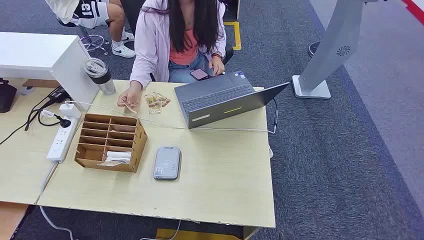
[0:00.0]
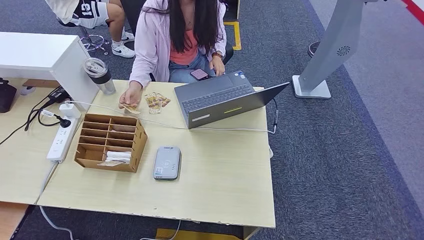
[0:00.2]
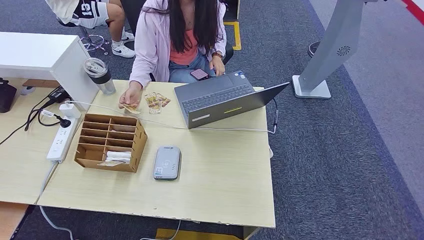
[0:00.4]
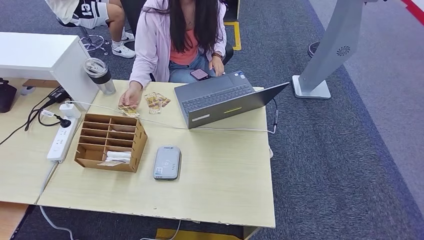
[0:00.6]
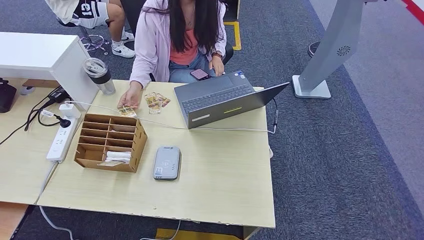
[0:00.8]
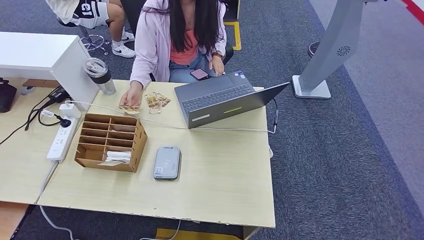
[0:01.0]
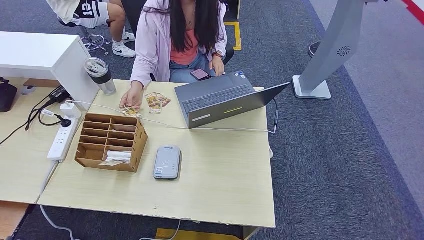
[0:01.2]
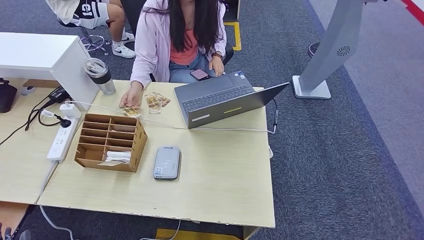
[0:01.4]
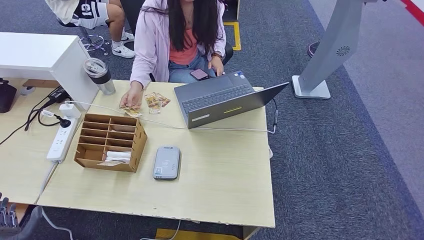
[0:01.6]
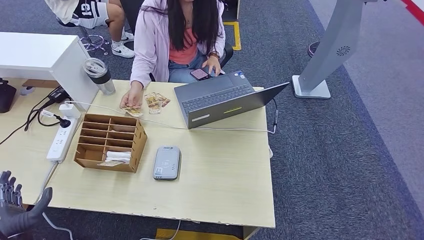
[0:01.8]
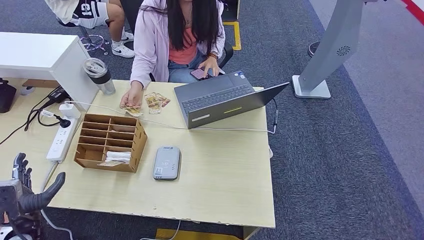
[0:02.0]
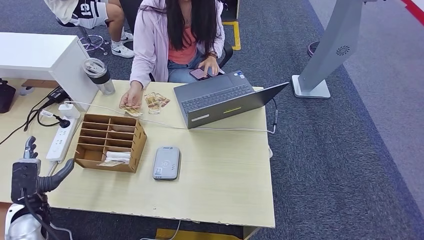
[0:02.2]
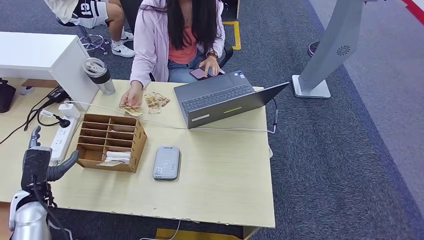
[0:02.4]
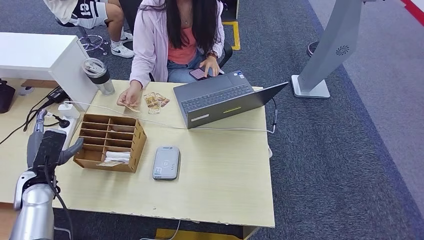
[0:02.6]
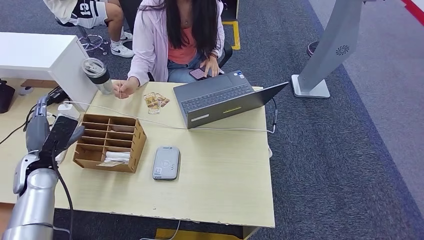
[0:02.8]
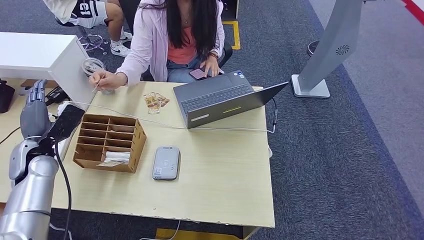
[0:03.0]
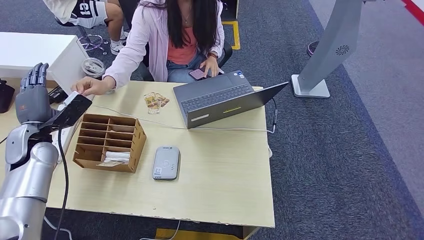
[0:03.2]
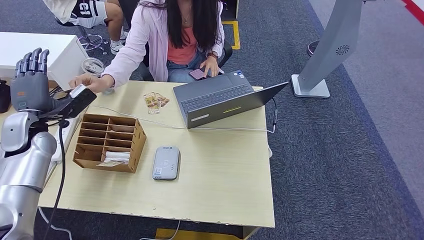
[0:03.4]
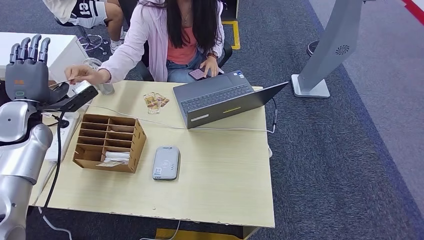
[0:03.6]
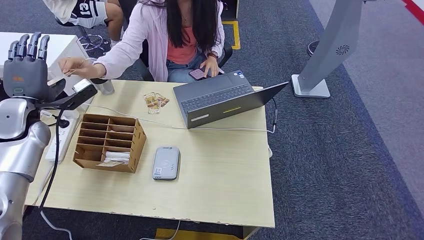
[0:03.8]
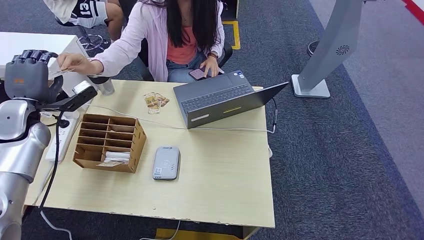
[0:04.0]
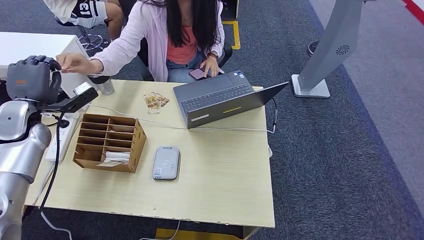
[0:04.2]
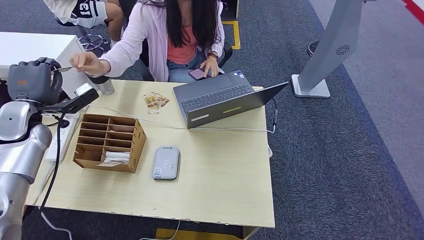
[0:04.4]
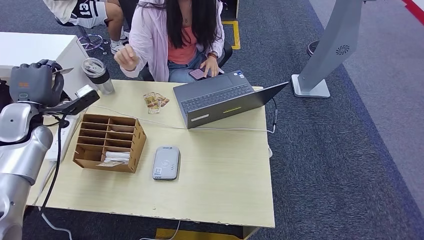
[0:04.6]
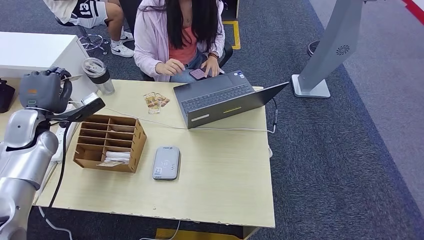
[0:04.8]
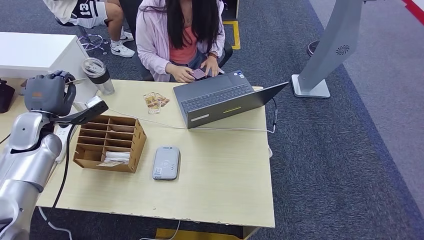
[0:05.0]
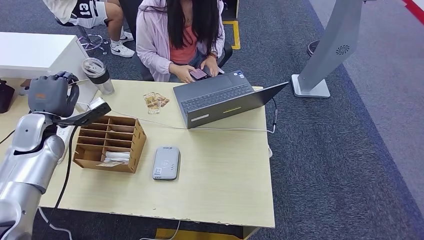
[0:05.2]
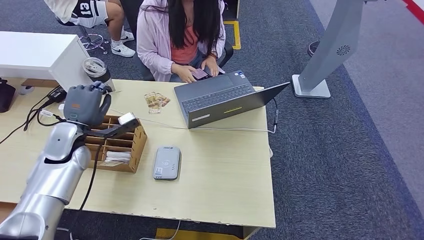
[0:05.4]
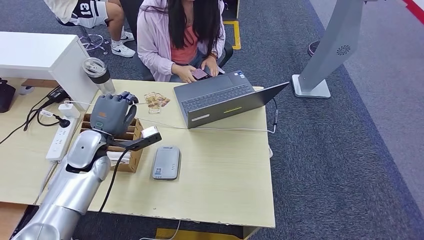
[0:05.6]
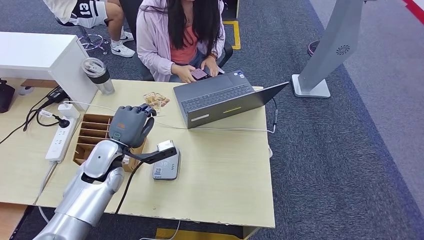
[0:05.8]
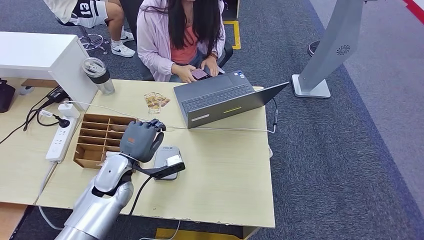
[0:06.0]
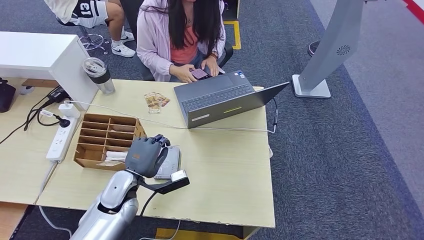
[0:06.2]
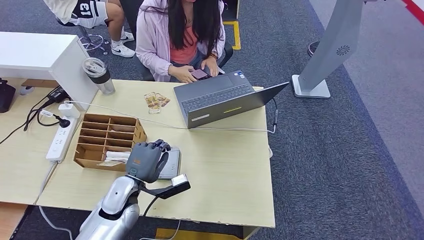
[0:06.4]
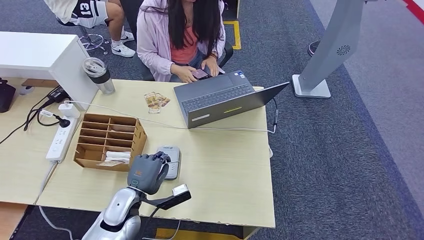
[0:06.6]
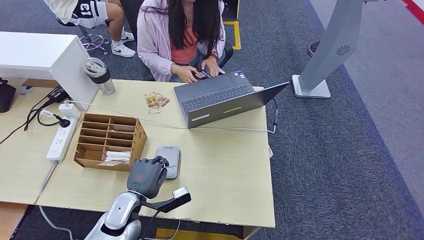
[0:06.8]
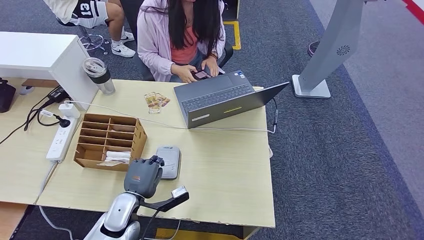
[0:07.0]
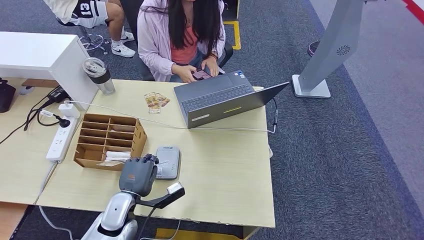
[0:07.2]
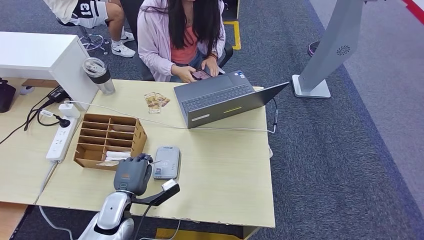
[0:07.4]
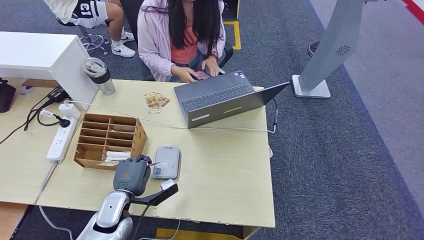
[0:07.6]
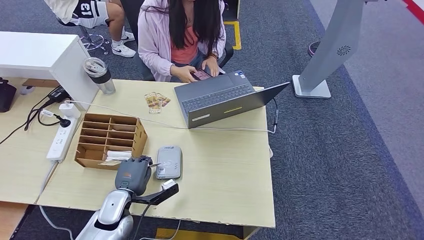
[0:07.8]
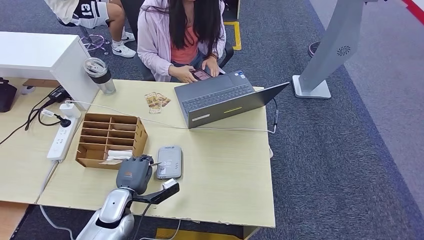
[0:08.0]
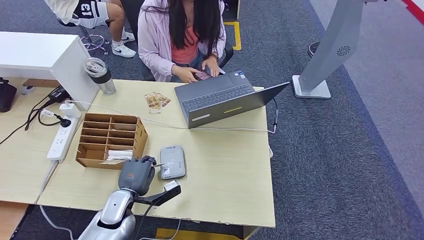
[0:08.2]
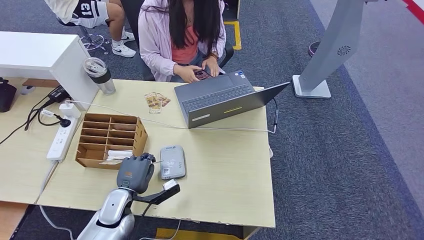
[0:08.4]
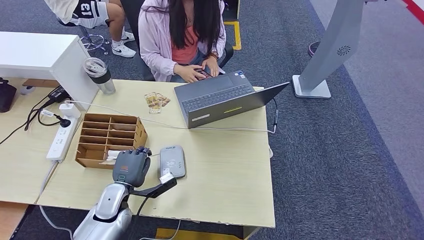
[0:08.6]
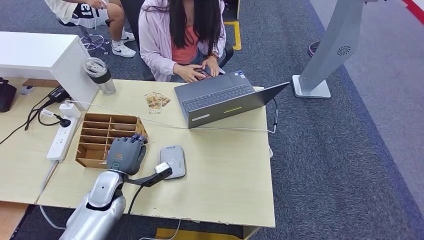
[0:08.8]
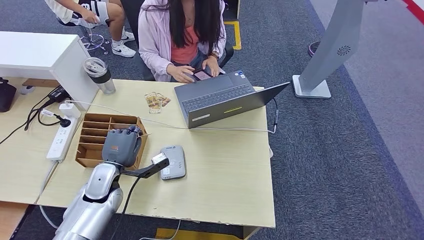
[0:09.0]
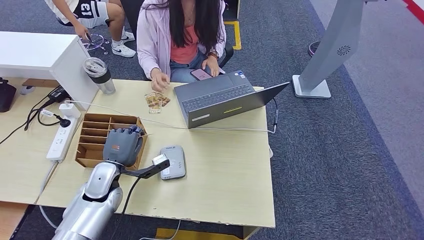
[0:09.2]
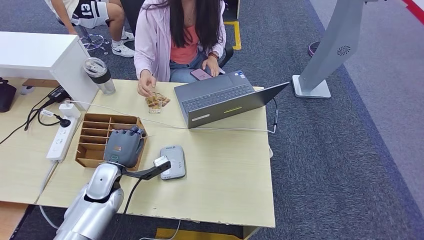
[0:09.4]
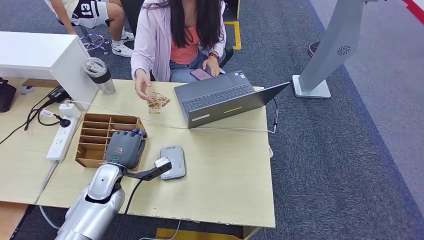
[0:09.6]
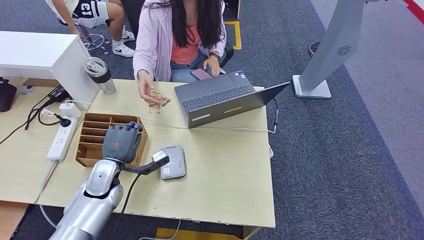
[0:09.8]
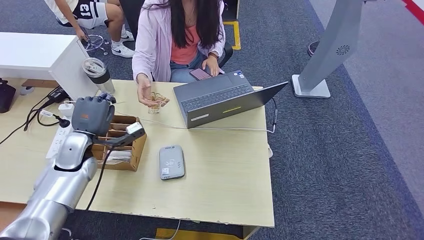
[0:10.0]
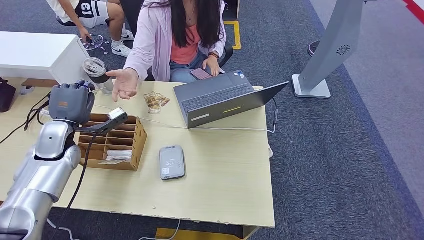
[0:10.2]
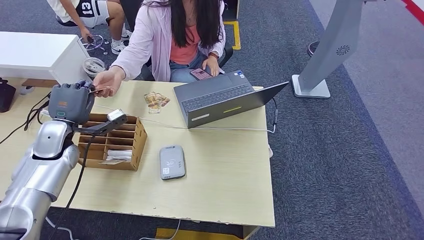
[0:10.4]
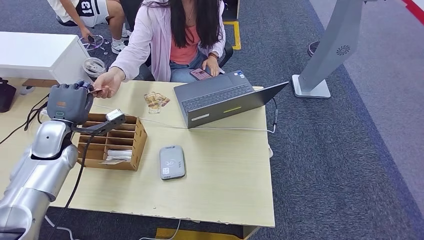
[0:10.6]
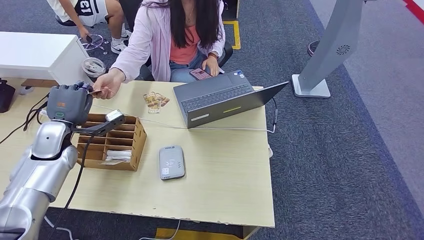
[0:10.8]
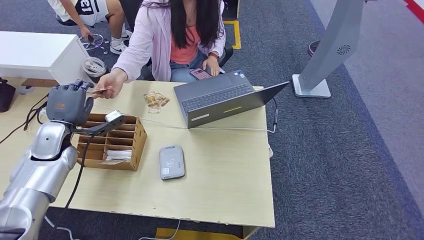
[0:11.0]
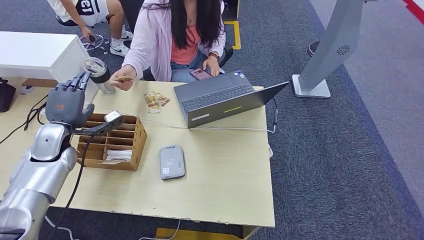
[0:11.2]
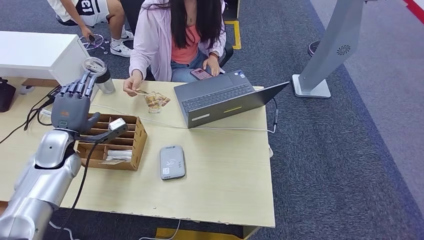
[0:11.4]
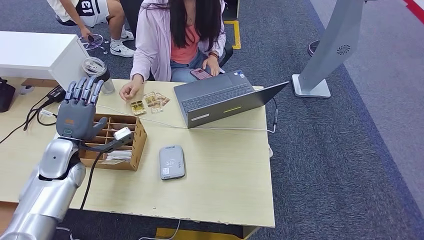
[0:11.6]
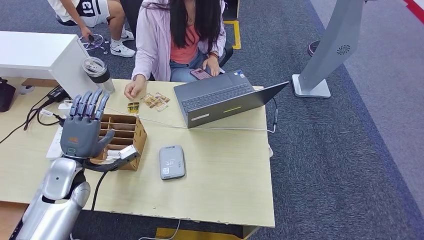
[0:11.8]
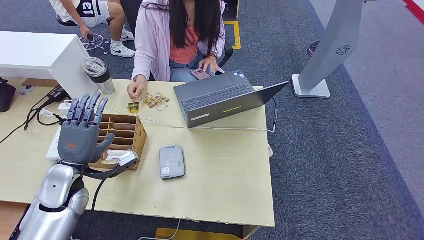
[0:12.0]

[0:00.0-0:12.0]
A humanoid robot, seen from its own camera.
Step, 0:00.0 to 0:04.0: Take the ID card from the person's hand.
Step, 0:04.2 to 0:06.6: Place the ID card on the card reader.
Step, 0:07.0 to 0:10.6: Hand the ID card to the person.
0:01.6 to 0:03.0: The left hand travels forward and upward by some 30 cm.
0:03.0 to 0:04.4: The left hand heads upward and forward, covering some 10 cm.
0:04.4 to 0:06.0: The left hand moves to the right, downward and backward, approximately 25 cm.
0:06.0 to 0:07.6: The left hand travels downward and backward by some 10 cm.
0:07.6 to 0:09.0: The left hand travels forward by approximately 5 cm.
0:09.0 to 0:10.4: The left hand is displaced to the left, upward and forward by some 15 cm.
0:10.4 to 0:12.0: The left hand shifts some 10 cm backward.

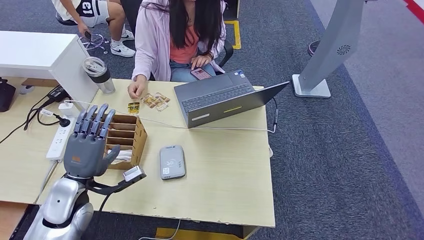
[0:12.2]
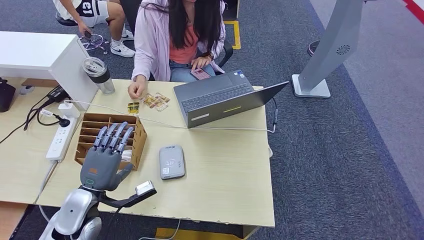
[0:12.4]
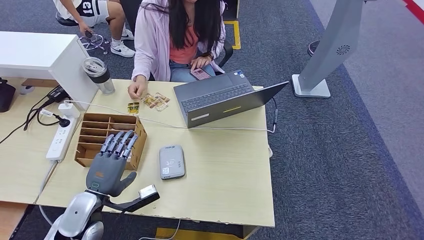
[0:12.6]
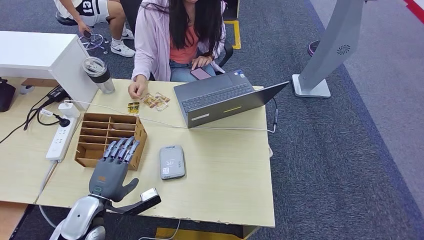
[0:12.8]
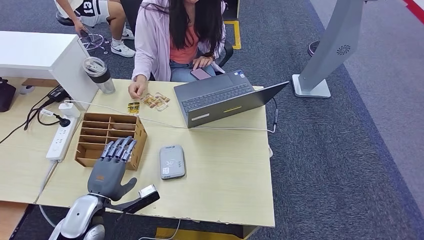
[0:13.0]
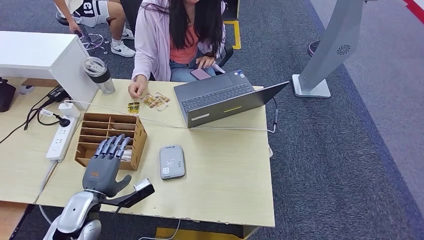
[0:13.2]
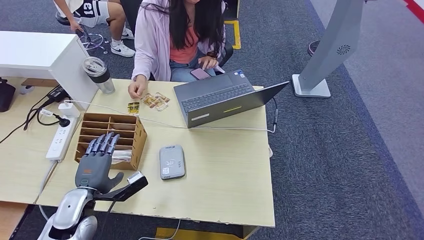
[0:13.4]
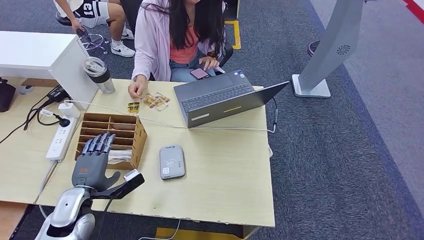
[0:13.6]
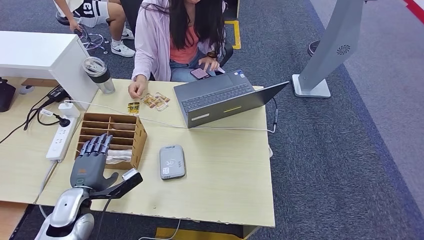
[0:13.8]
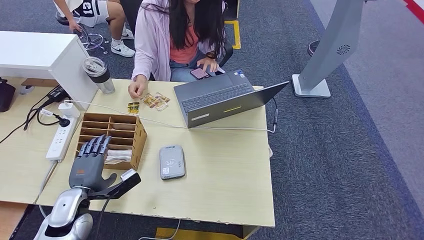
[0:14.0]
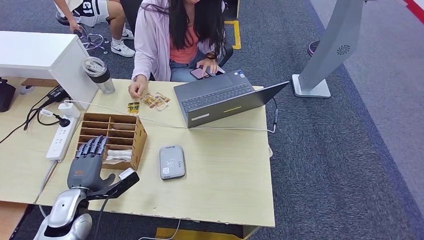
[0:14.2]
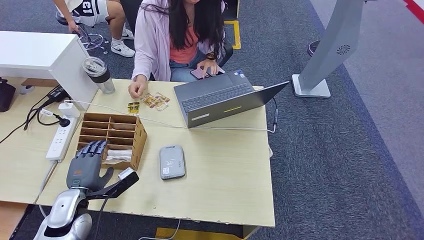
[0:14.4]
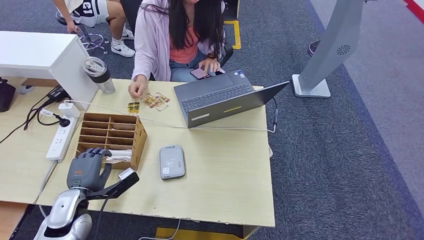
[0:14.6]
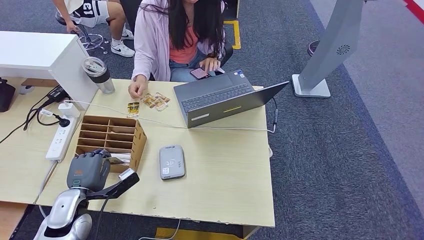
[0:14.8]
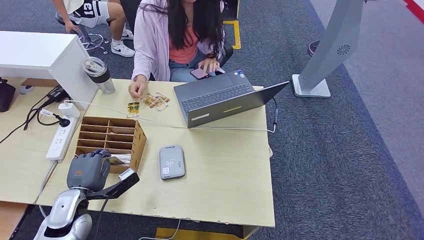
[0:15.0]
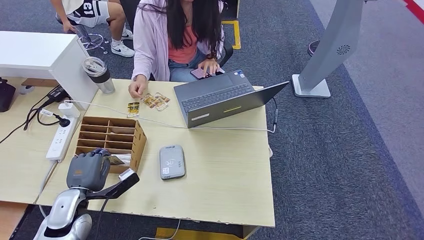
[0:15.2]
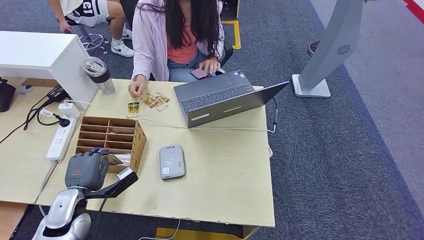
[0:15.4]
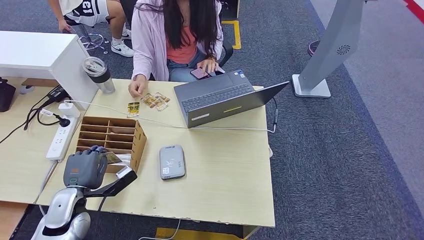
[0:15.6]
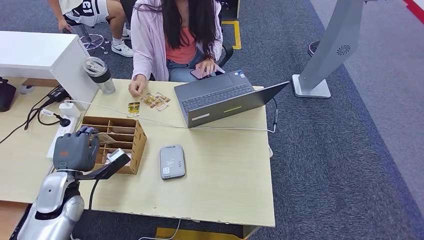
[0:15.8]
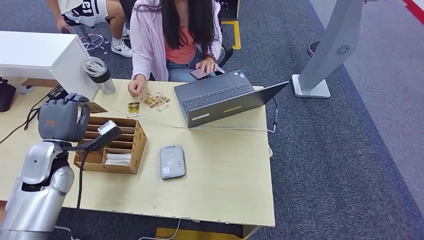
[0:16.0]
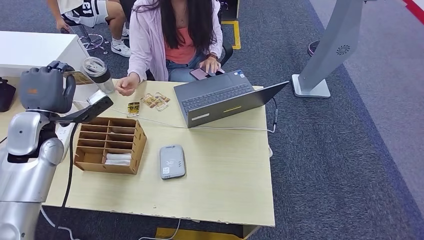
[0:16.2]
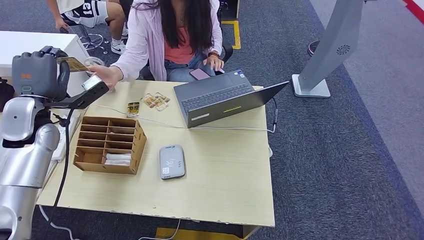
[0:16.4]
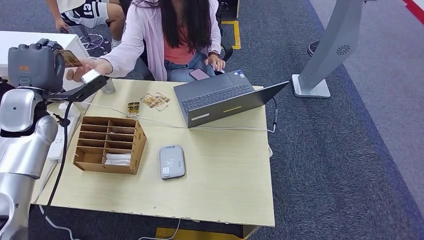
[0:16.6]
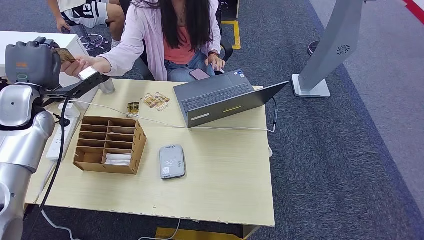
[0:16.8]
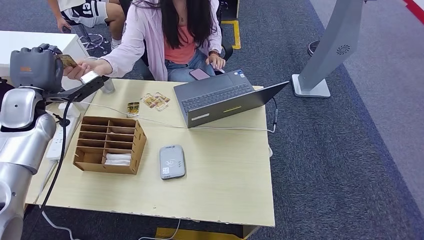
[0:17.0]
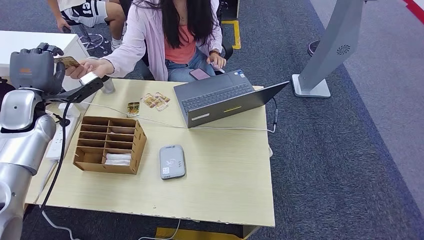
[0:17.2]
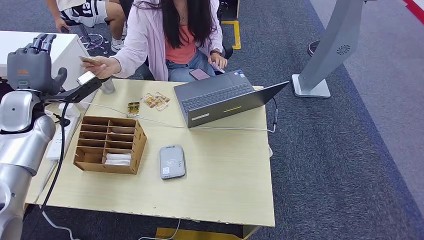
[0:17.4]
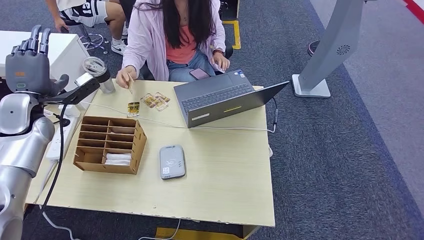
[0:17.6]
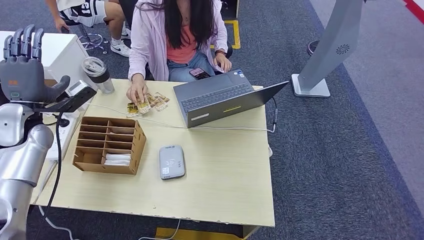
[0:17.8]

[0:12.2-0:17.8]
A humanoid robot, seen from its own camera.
Step, 0:12.2 to 0:16.6: Pick up the room key from the key card box.
Step, 0:16.8 to 0:17.8: Hand the room key to the person.
0:12.2 to 0:13.6: The left hand is displaced downward by some 5 cm.
0:13.6 to 0:15.0: The hands move only a little.
0:15.0 to 0:16.4: The left hand heads upward and forward, covering roughly 25 cm.
0:16.4 to 0:17.8: The hands stay close to where they were, moving slightly.
